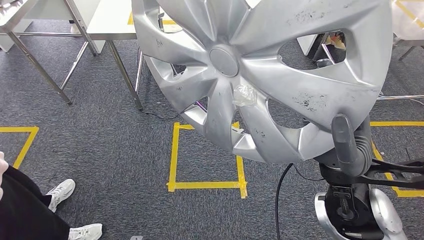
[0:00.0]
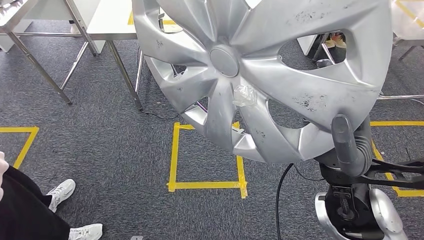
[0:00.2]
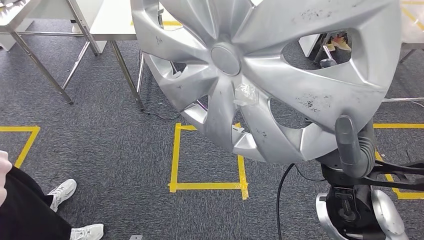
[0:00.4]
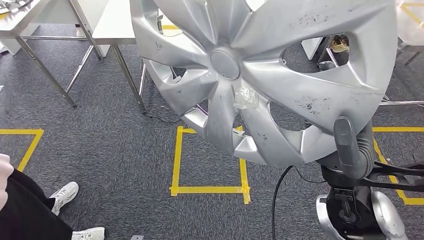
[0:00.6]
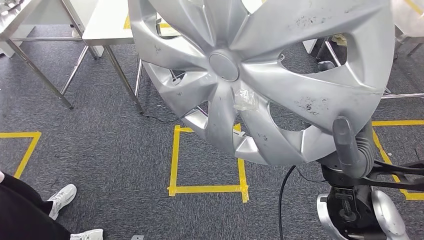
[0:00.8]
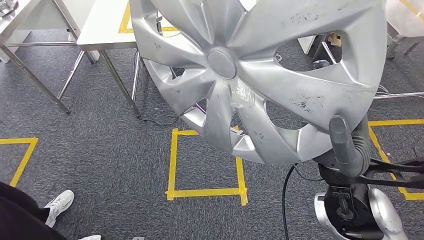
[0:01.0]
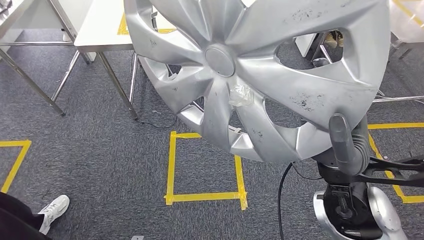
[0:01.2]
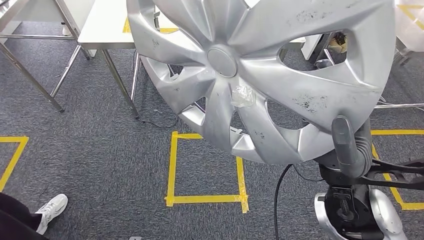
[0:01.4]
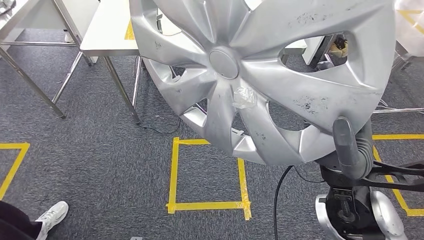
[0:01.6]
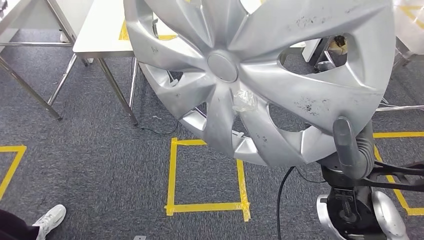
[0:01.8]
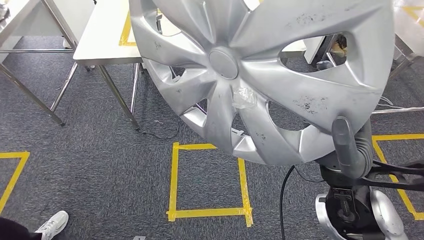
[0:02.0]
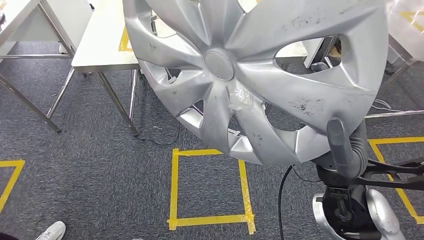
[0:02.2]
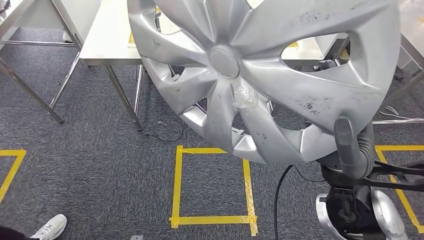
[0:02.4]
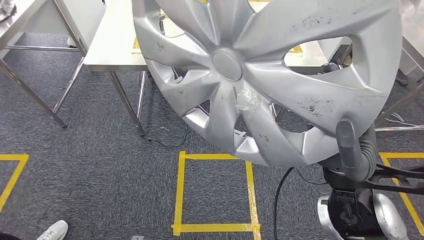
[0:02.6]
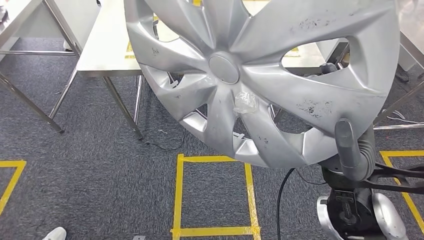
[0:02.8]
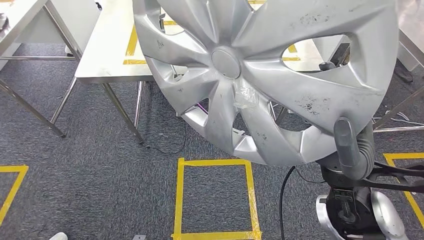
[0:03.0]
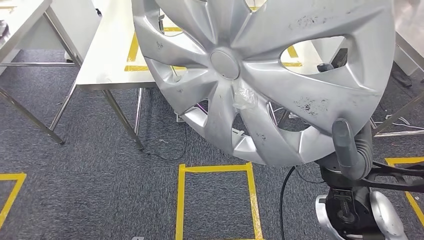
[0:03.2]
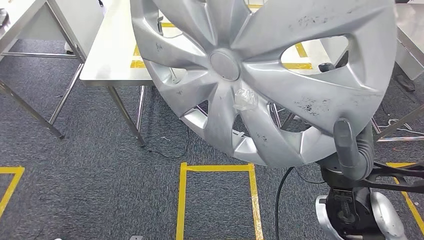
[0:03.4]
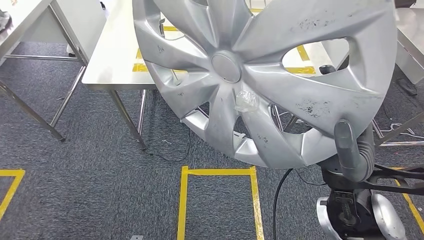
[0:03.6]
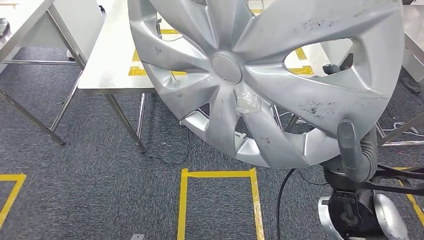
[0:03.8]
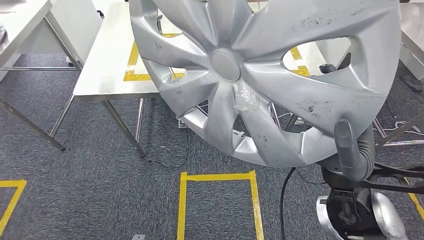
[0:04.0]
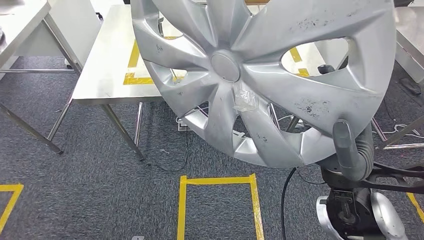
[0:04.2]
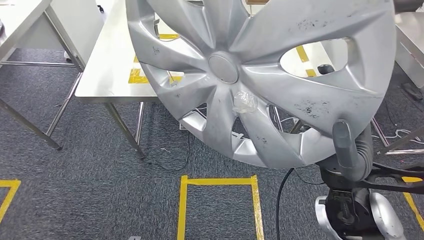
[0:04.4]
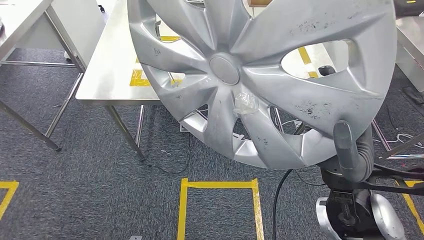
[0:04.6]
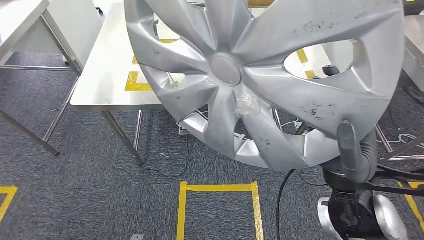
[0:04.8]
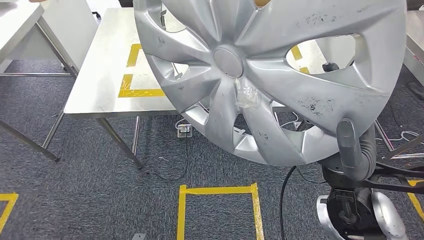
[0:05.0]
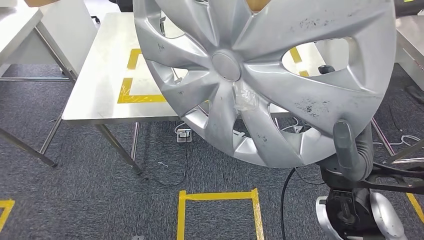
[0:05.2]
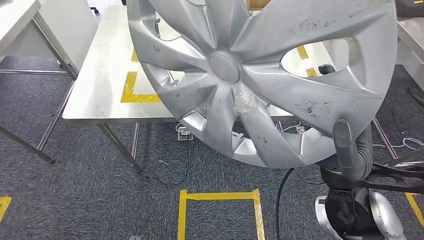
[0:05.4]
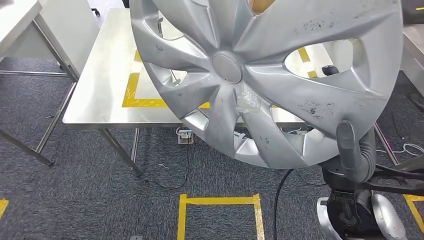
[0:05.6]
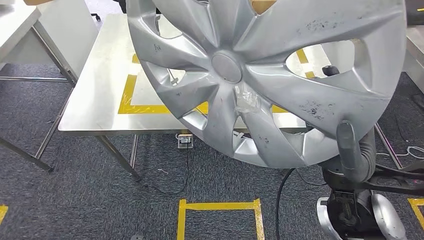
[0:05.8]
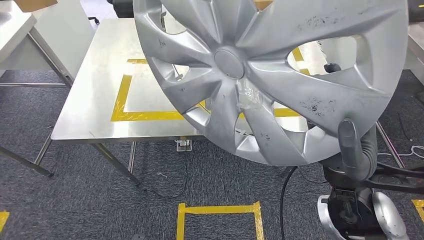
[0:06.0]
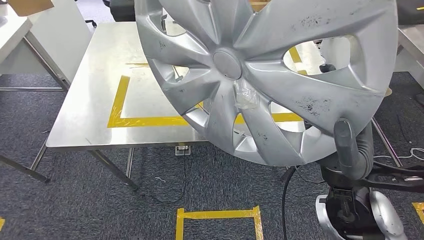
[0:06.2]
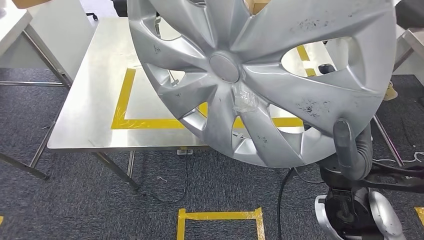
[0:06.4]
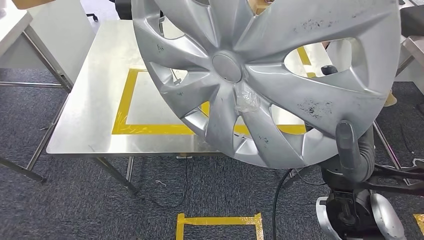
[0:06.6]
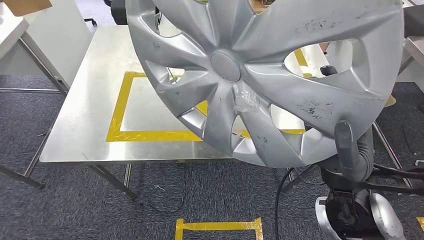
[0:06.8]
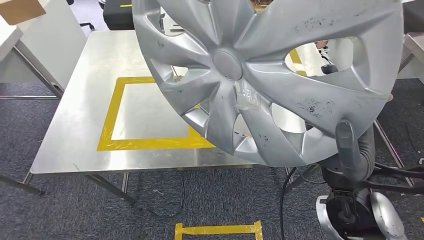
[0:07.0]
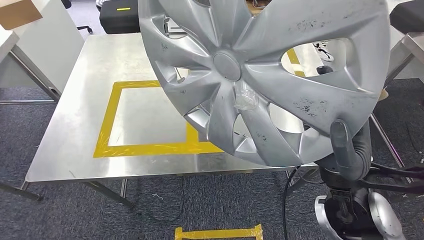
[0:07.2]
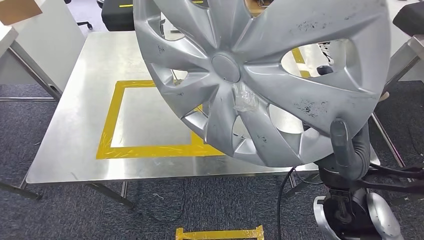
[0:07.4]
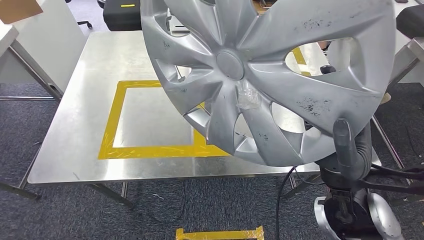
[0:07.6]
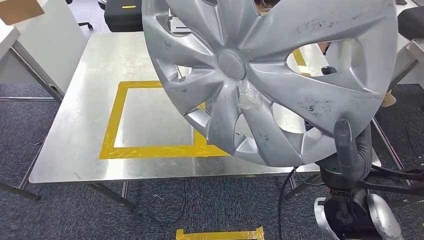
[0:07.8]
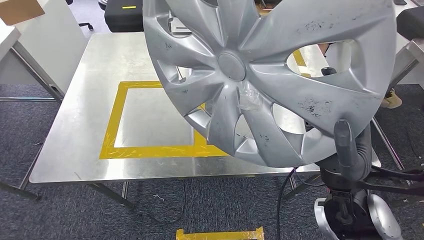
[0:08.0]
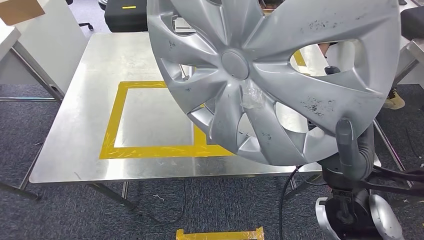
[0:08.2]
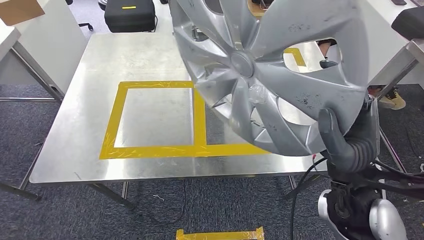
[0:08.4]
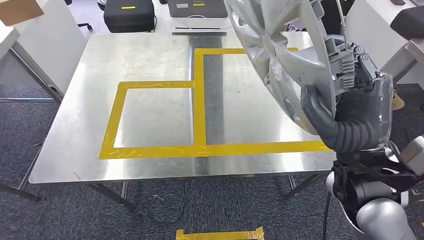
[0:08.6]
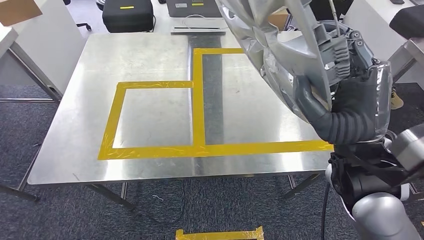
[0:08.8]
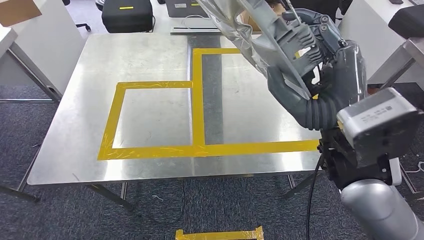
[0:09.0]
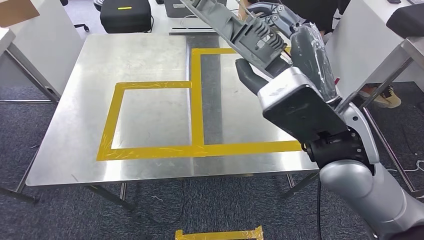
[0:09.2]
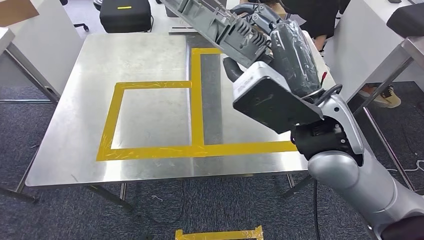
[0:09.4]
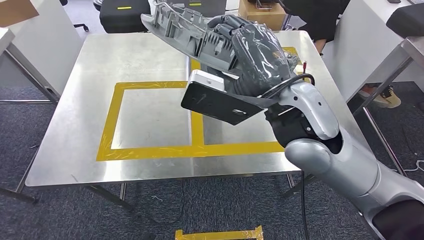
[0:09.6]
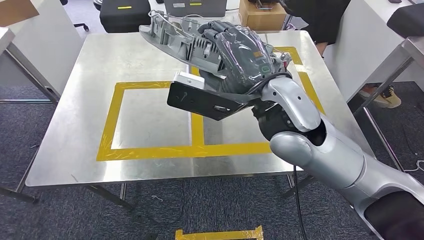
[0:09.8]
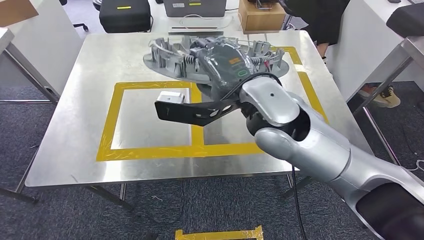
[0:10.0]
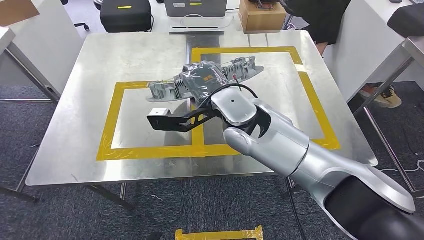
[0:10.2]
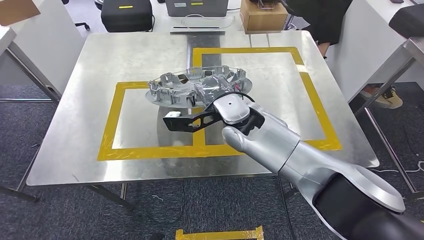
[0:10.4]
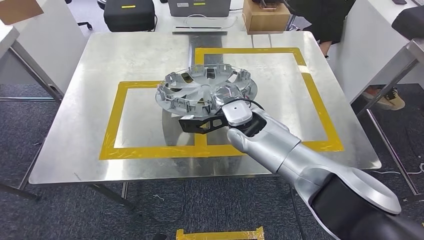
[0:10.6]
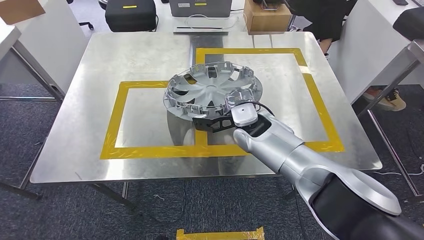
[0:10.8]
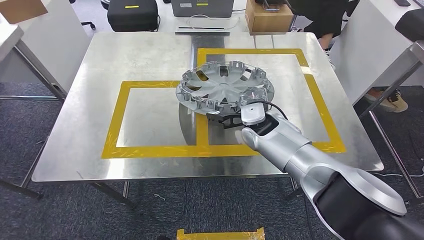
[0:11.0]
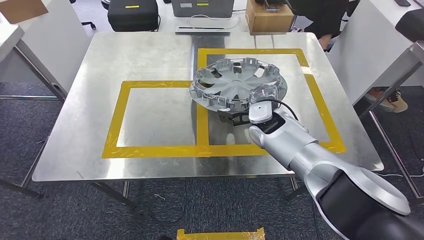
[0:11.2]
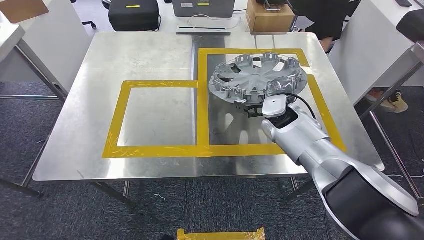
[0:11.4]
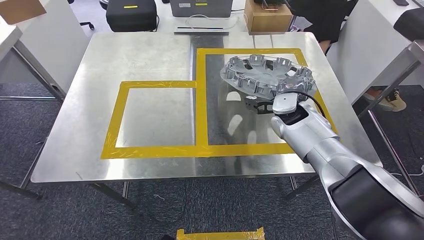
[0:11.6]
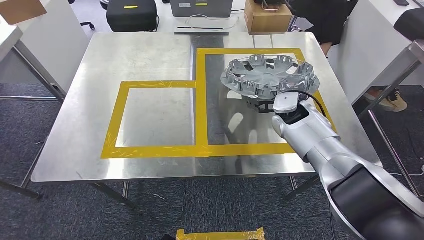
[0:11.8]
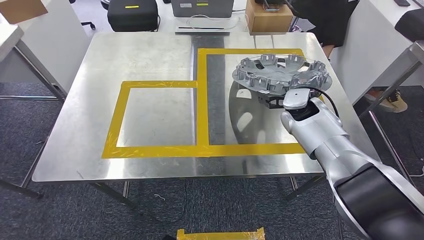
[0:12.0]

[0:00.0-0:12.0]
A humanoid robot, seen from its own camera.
Step, 0:00.0 to 0:08.4: Move the small parts to the workbench.

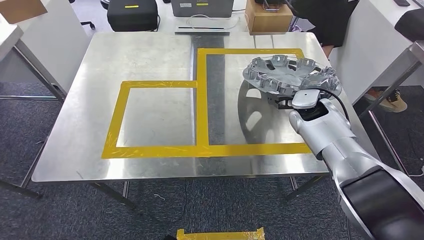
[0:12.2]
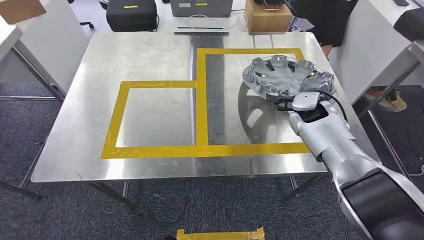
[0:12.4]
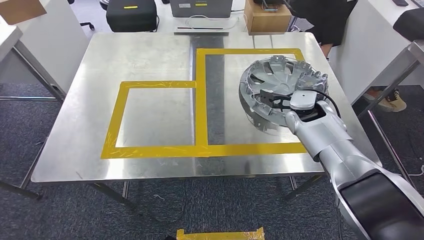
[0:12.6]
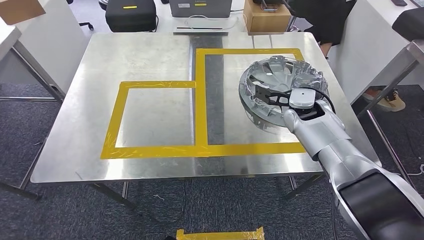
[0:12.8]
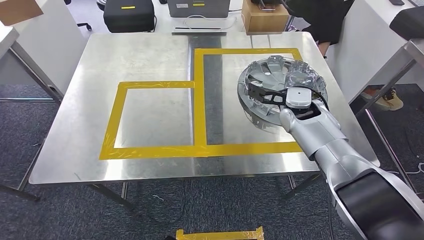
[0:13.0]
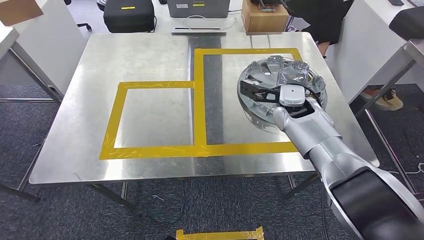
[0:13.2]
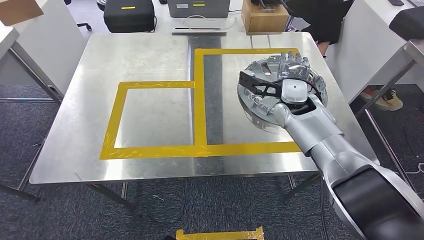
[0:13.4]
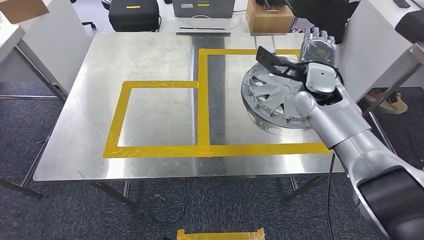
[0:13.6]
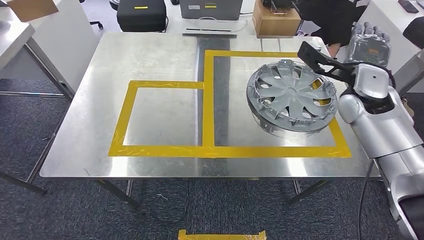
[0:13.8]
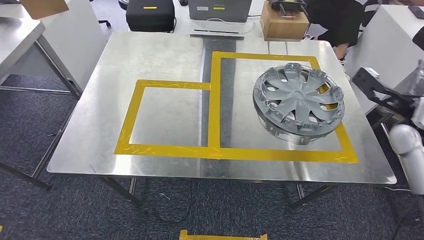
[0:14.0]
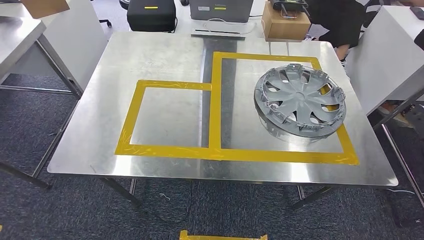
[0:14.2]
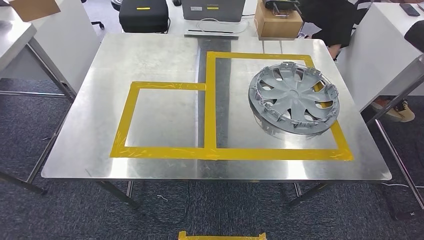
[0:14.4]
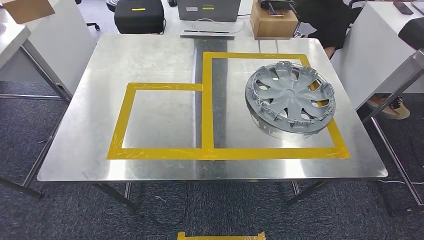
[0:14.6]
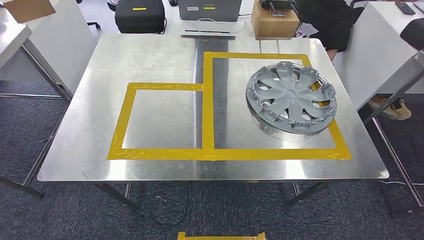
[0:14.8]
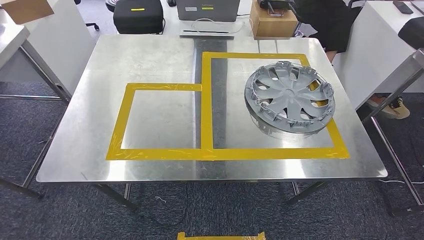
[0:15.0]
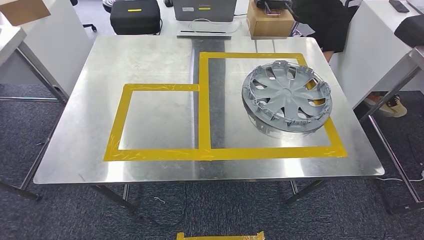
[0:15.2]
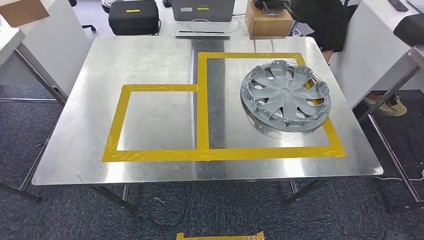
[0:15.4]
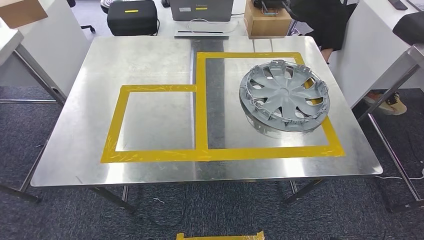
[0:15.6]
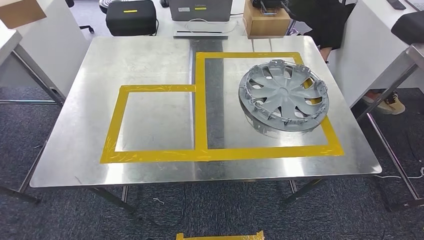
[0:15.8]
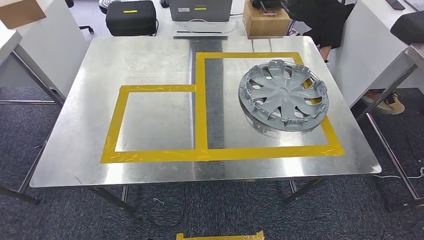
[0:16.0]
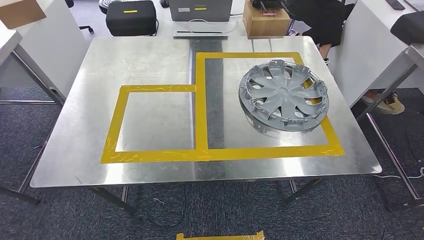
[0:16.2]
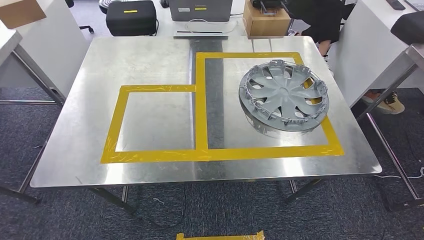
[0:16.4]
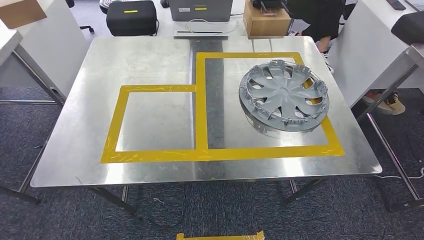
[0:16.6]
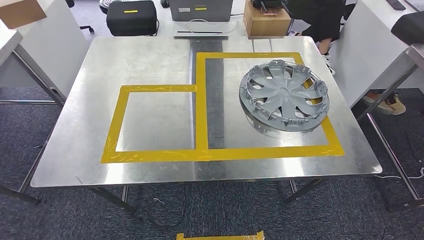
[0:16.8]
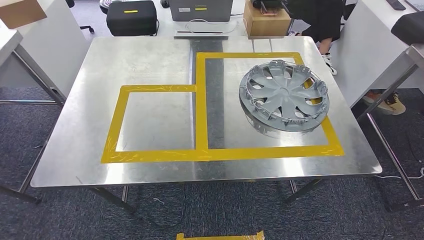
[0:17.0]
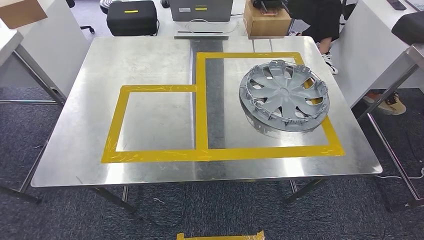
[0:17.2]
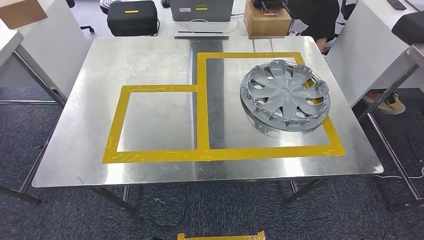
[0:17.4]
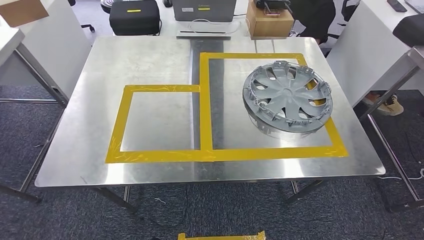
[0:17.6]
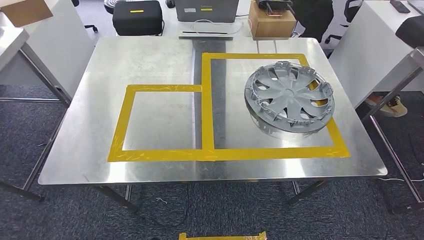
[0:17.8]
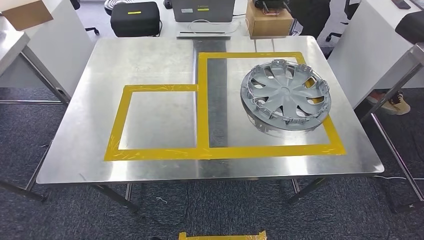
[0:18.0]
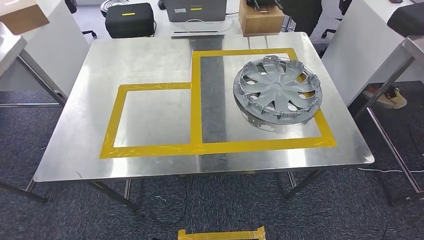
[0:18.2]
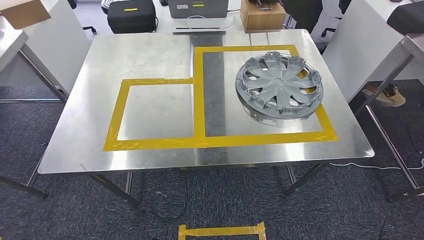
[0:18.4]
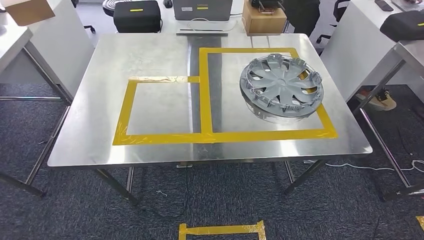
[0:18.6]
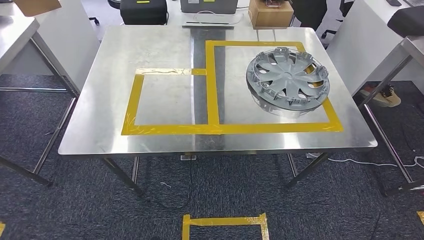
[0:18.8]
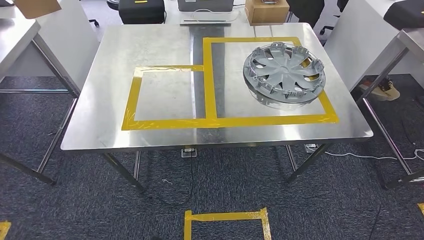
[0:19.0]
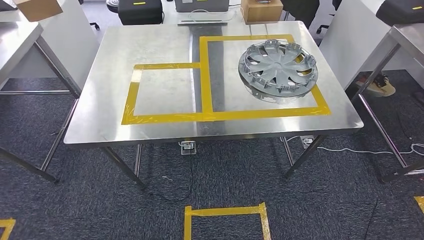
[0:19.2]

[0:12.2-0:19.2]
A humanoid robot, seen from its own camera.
Step, 0:12.2 to 0:15.4: Insert the small parts into the corresponding slots on the workbench.
0:12.2 to 0:13.6: The right hand moves upward, some 10 cm.
0:15.0 to 0:16.4: The right hand travels to the left and downward by roughly 50 cm.
0:16.4 to 0:17.8: The two hands keep their place.
